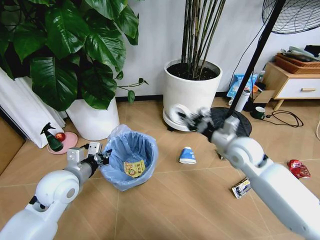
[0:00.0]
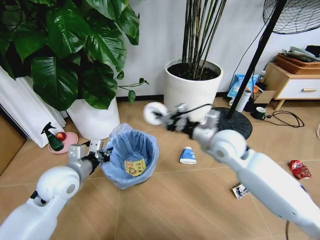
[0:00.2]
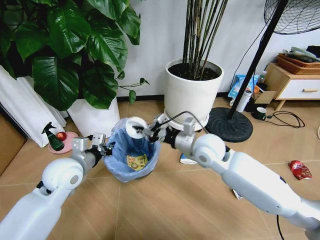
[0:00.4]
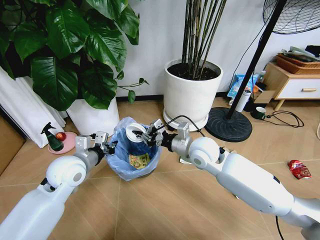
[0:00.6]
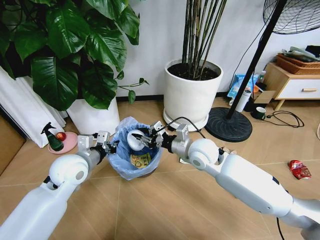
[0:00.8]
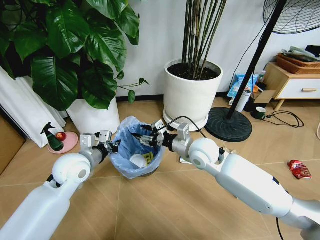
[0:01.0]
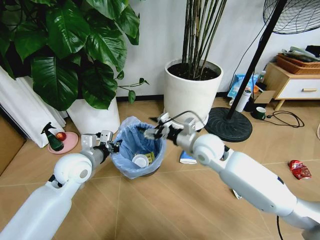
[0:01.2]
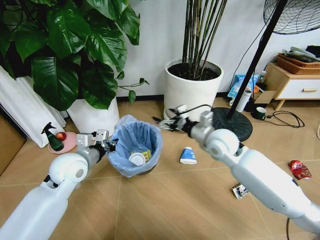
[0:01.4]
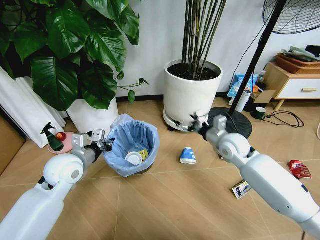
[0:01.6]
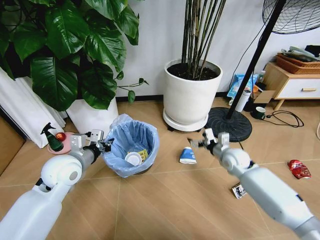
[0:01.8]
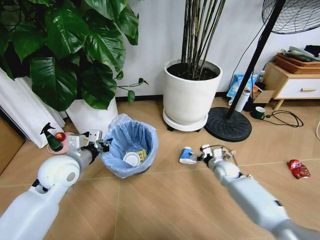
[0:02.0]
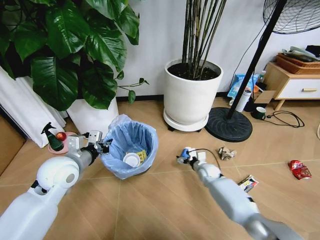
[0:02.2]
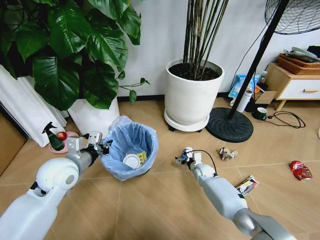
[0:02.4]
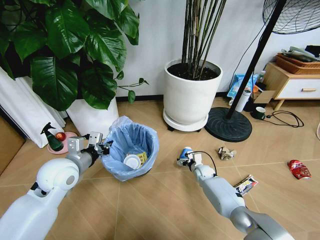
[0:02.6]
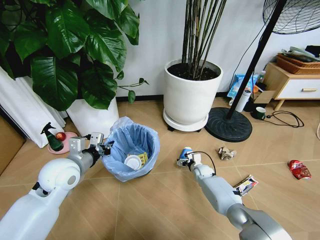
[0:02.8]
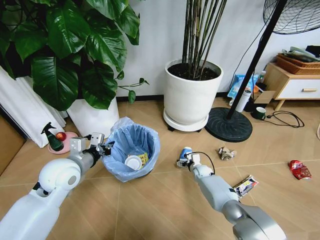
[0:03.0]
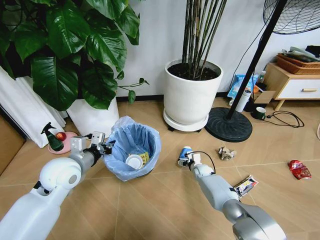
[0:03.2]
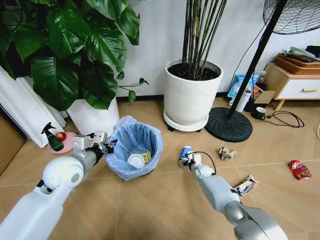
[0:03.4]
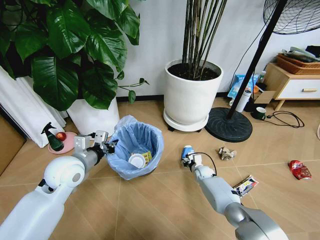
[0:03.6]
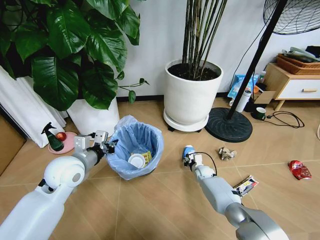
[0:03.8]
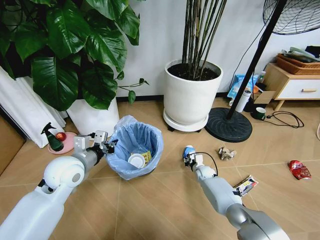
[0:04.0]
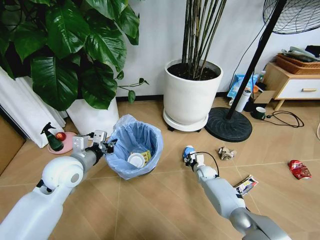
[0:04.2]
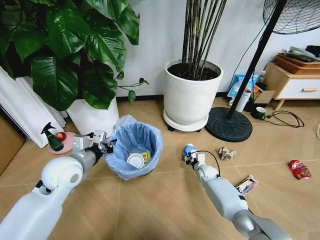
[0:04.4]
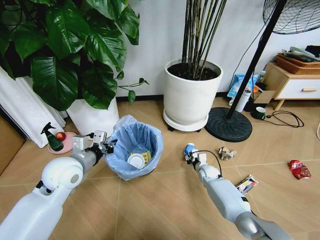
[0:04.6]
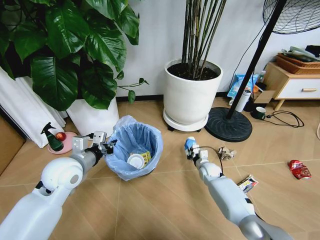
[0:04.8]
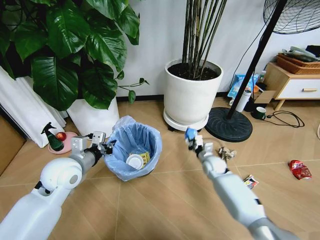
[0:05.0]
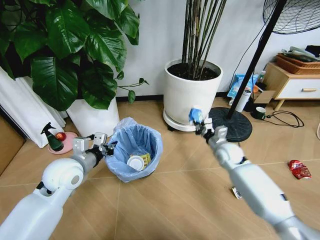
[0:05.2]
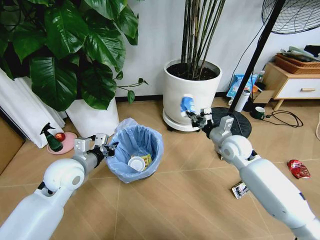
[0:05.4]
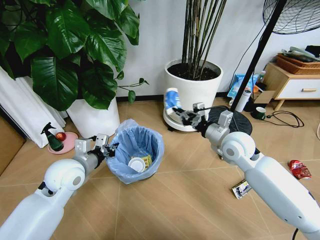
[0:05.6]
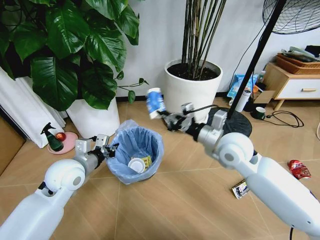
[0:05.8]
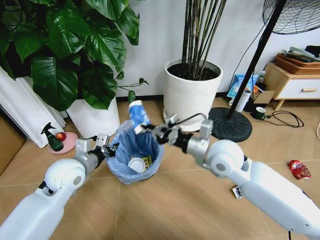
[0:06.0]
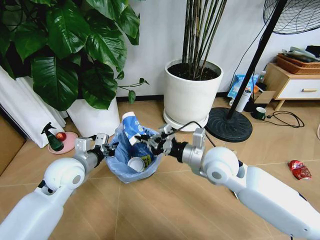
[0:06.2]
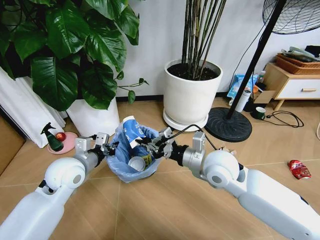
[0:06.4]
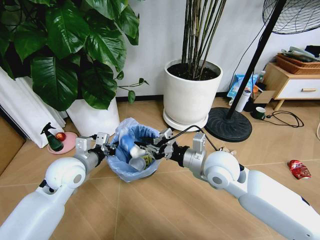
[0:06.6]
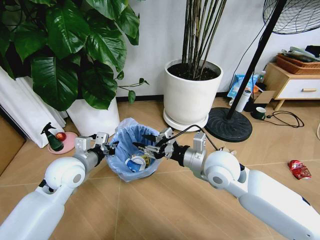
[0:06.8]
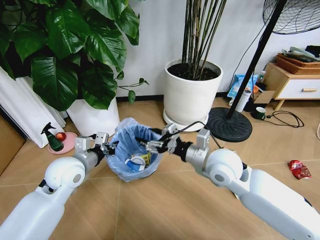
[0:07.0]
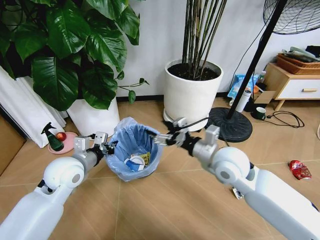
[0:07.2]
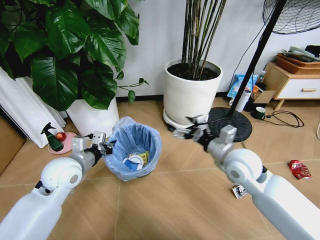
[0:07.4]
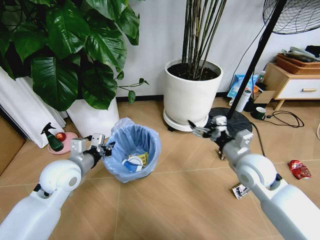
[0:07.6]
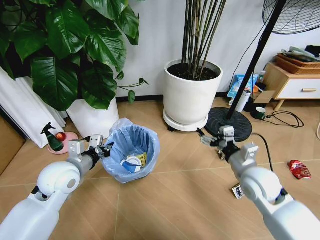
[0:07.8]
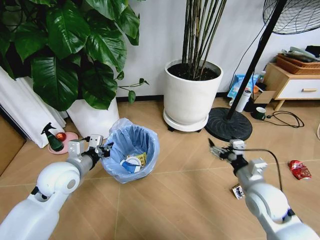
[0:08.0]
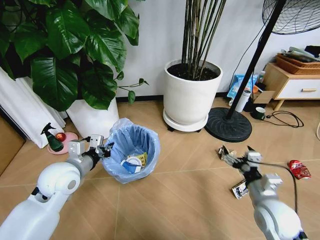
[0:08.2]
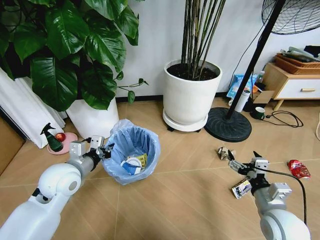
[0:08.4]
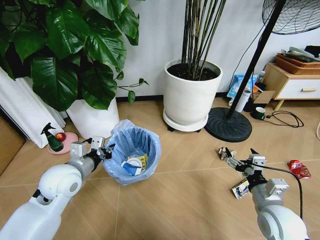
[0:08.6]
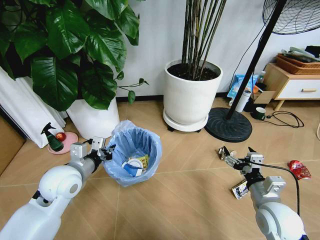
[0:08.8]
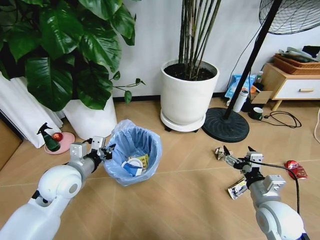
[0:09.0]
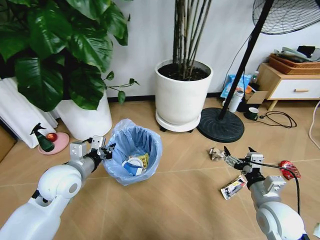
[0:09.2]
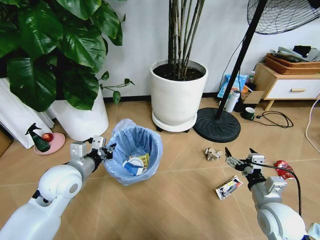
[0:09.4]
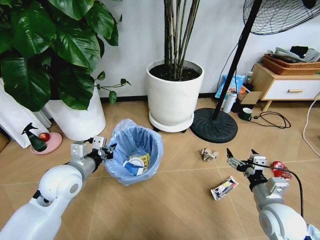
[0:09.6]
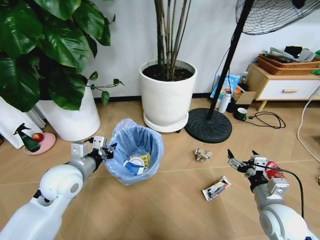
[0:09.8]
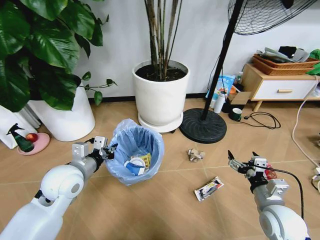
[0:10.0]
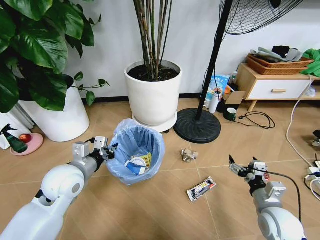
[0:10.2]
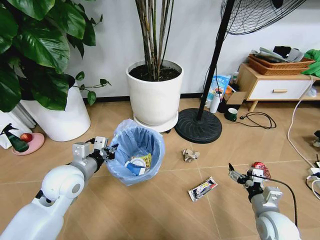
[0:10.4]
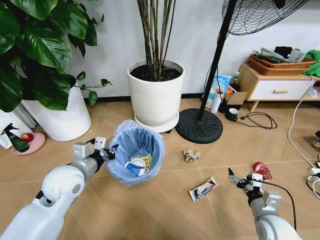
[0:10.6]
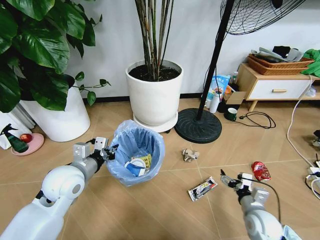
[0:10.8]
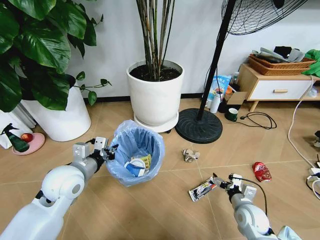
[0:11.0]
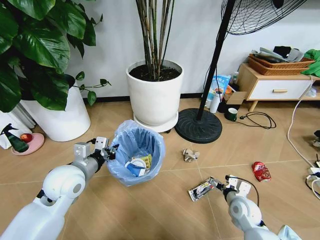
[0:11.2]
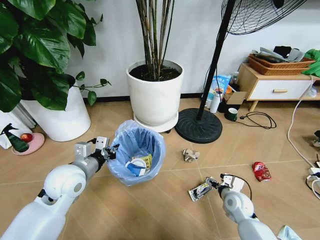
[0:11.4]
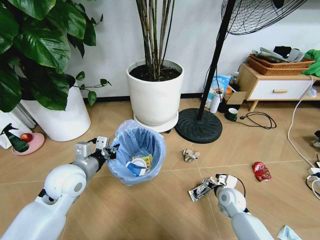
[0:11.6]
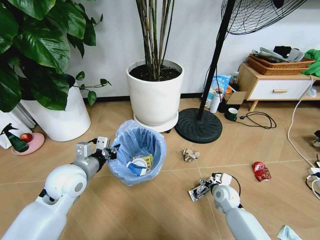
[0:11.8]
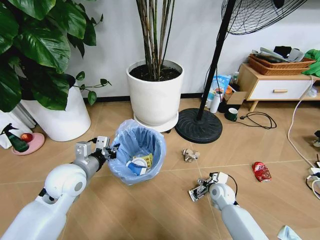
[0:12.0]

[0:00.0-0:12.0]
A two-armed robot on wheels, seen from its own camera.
Task of the whole recording: Pick up the trash bin and place the garbage on the floor into it.
0:00.0 to 0:01.6: The right gripper travels to the left and back again, some 15 cm each way, and opens up, while the left gripper moves some 5 cm.
0:01.6 to 0:03.0: The right gripper travels downward by approximately 30 cm.
0:03.0 to 0:04.4: The right gripper closes up.
0:04.4 to 0:06.0: The right gripper heads upward, covering roughly 35 cm.
0:06.0 to 0:07.6: The right gripper shifts approximately 10 cm to the right, and opens.
0:07.6 to 0:09.0: The right gripper shifts approximately 15 cm backward and downward.
0:09.0 to 0:10.4: The right gripper goes about 5 cm downward.
0:10.4 to 0:12.0: The right gripper heads forward, downward and to the left, covering approximately 20 cm.

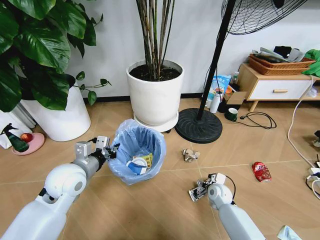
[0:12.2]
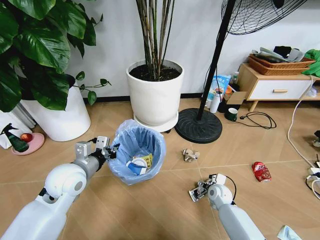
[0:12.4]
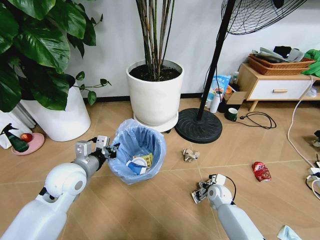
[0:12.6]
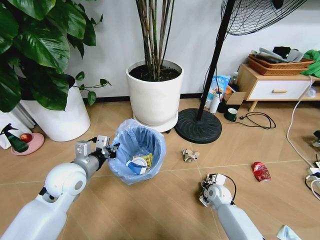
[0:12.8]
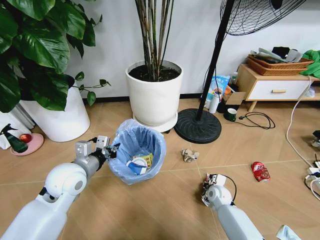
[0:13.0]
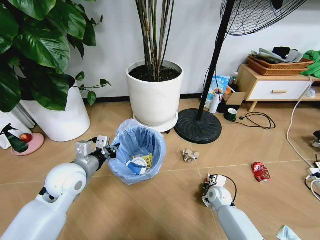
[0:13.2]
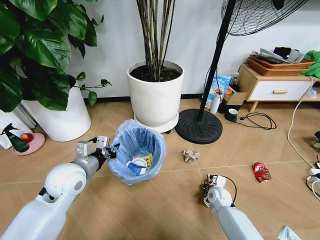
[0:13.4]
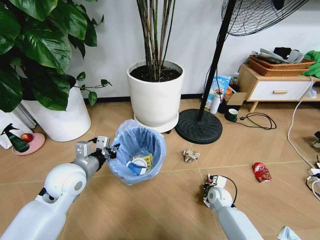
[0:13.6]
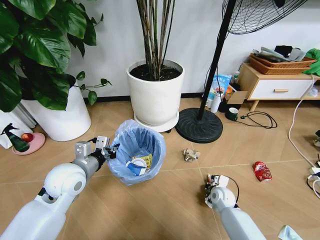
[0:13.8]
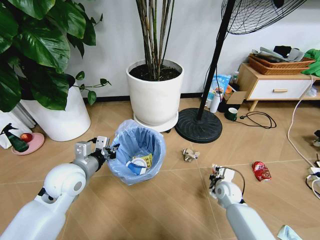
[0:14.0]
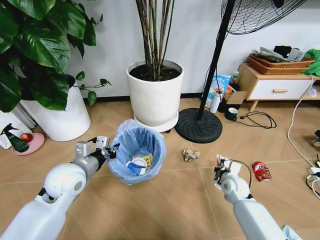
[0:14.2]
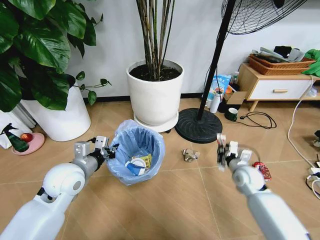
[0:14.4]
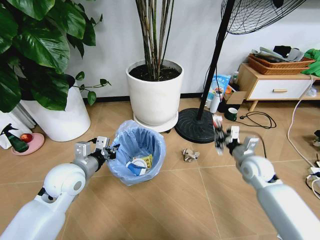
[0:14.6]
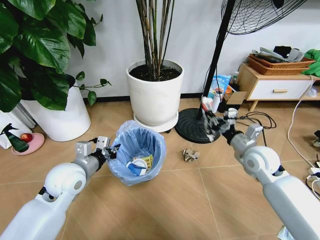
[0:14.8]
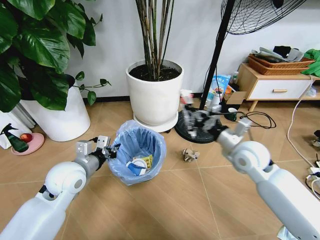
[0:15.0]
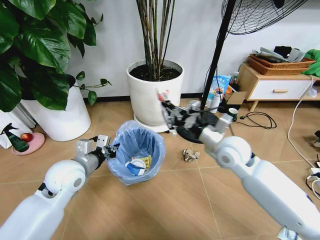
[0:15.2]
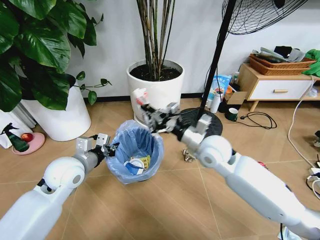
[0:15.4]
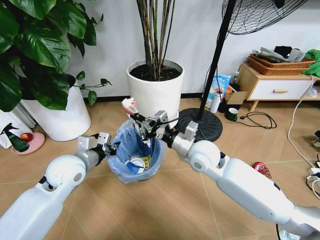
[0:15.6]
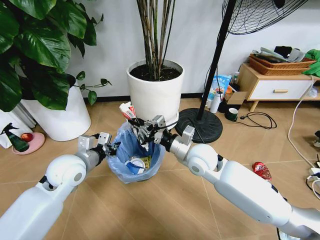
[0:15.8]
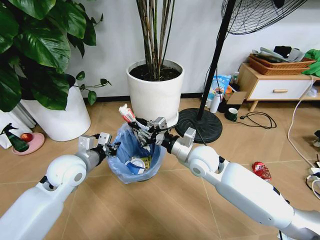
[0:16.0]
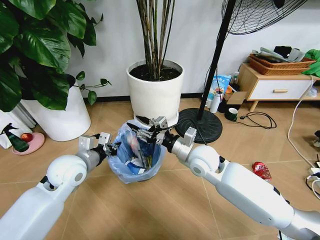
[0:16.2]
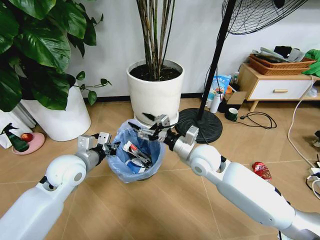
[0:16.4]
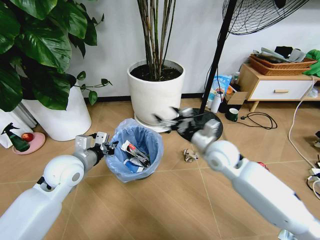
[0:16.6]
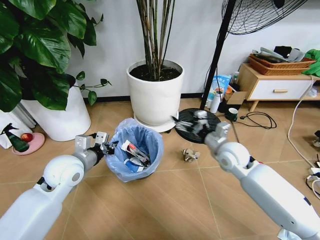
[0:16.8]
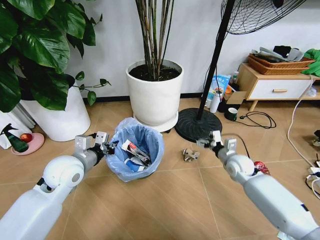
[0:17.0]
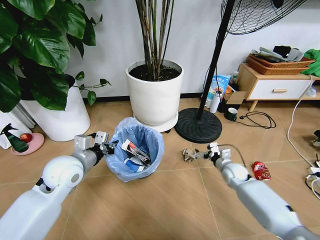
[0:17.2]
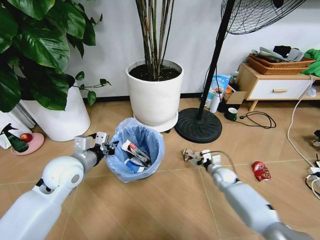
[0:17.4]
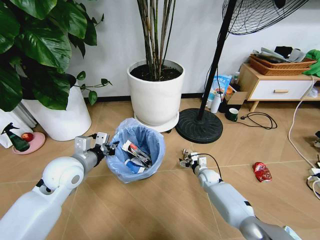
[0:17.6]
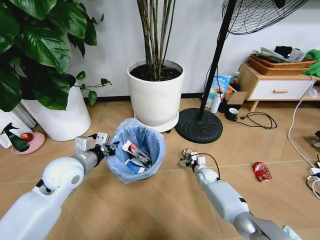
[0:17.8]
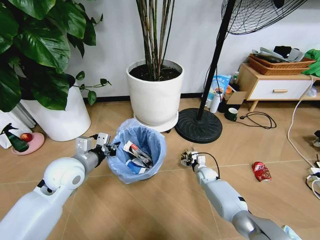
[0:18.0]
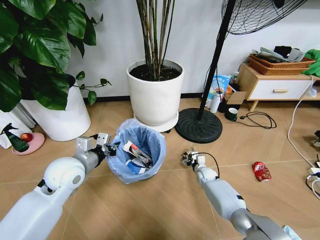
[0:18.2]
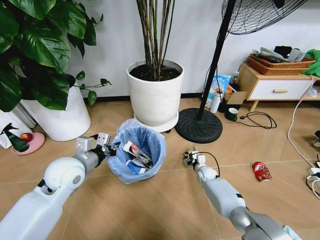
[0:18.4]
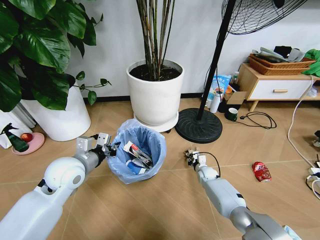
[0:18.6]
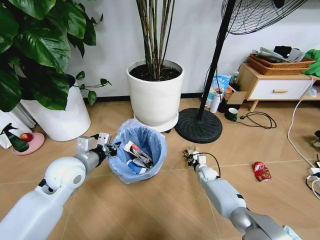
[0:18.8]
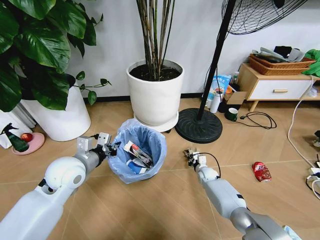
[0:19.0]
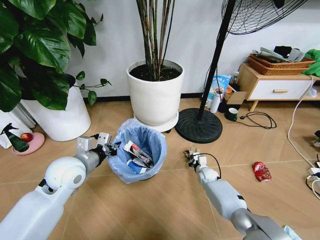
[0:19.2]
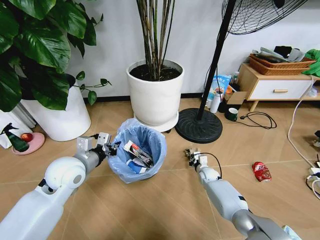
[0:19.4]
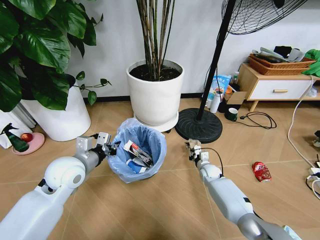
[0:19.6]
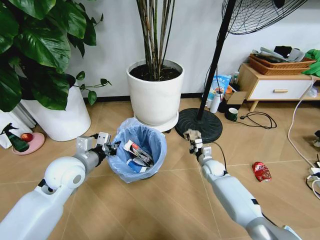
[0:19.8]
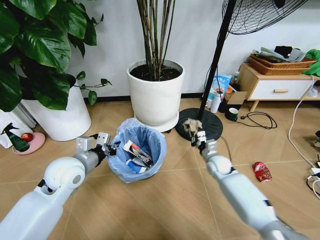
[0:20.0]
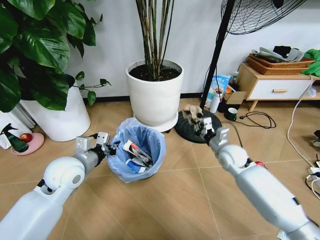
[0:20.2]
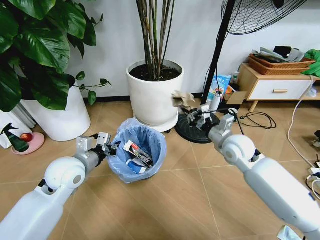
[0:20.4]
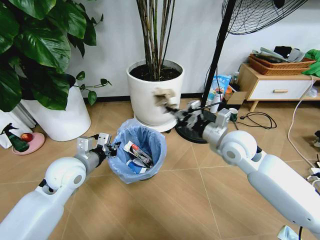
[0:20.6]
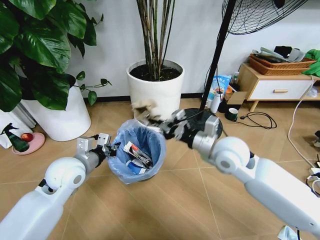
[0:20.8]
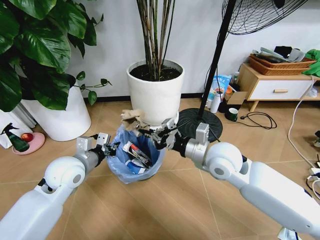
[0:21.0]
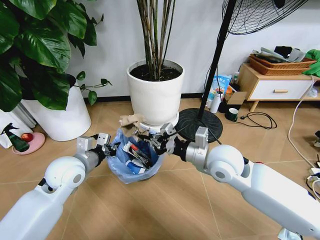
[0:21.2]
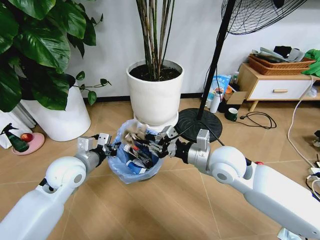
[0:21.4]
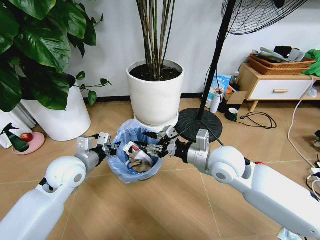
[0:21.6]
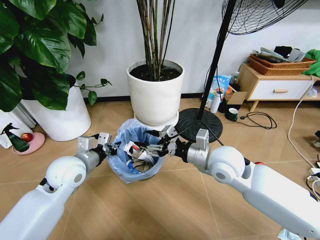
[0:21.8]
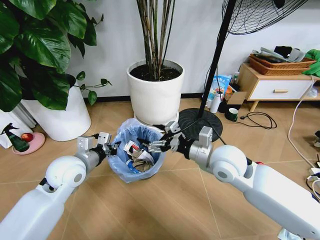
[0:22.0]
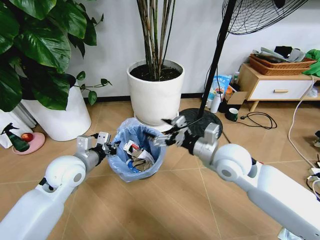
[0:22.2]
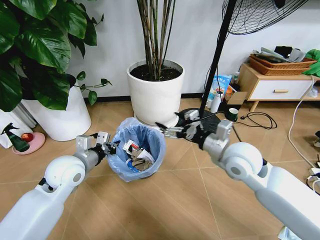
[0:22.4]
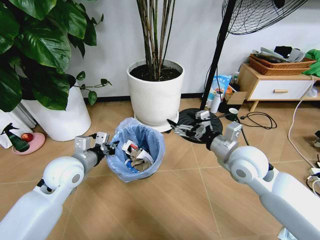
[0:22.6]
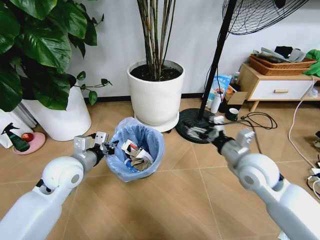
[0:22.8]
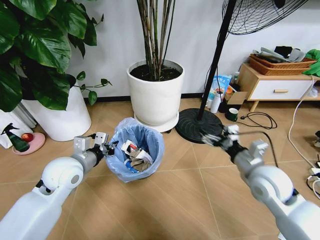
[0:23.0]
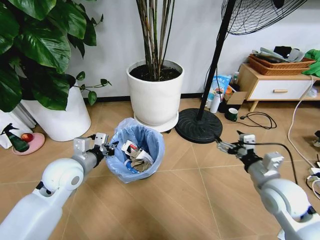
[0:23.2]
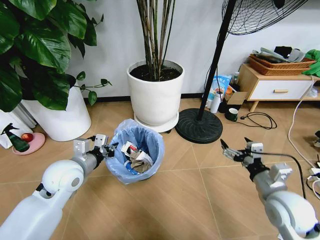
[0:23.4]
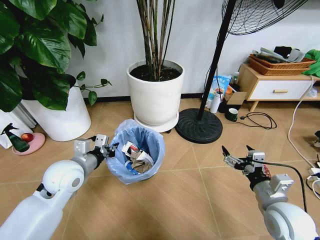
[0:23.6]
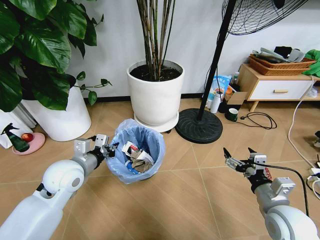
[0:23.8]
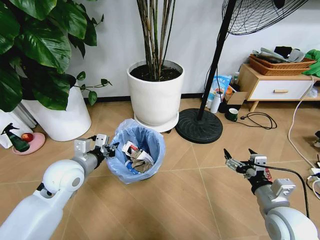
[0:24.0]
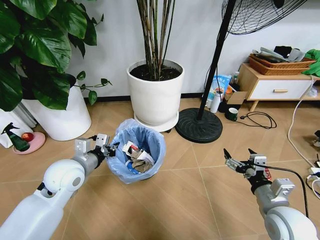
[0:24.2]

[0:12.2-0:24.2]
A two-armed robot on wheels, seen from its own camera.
Task of the whole recording: Pick up the trash bin and place the garbage on the floor into it.
0:12.2 to 0:13.8: The right gripper closes its fingers.
0:13.8 to 0:15.2: The right gripper travels upward by roughly 30 cm.
0:15.2 to 0:16.6: The right gripper moves roughly 10 cm to the left and comes back, and opens its fingers.
0:16.6 to 0:18.2: The right gripper moves downward, about 30 cm.
0:18.2 to 0:19.8: The right gripper goes approximately 5 cm upward, and closes up.
0:19.8 to 0:21.2: The right gripper goes some 30 cm upward and backward.
0:21.2 to 0:22.6: The right gripper is displaced to the right by some 5 cm, and opens its fingers.
0:22.6 to 0:24.2: The right gripper is displaced backward, downward and to the right by approximately 20 cm.
